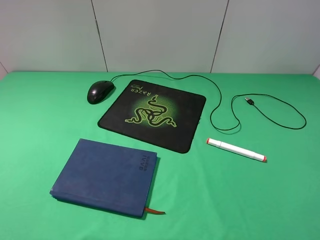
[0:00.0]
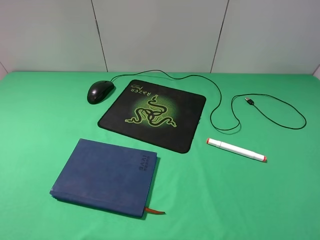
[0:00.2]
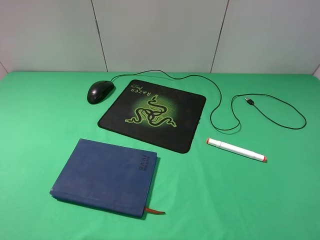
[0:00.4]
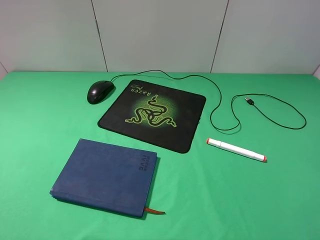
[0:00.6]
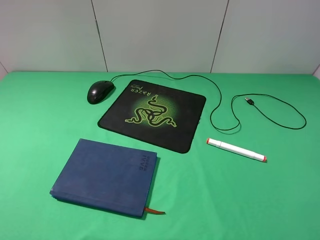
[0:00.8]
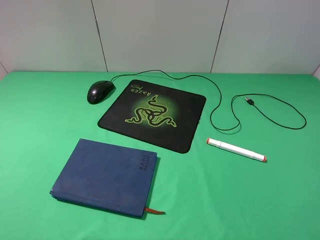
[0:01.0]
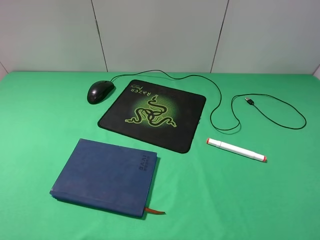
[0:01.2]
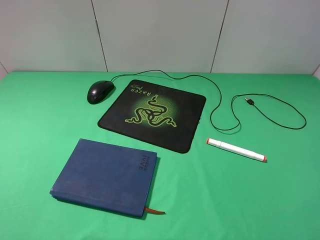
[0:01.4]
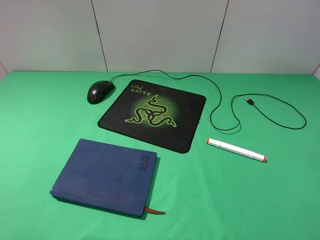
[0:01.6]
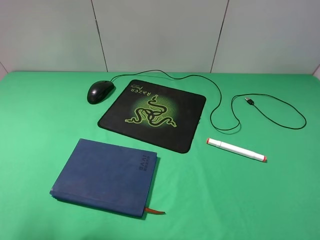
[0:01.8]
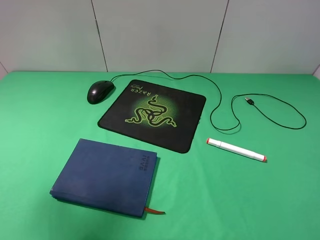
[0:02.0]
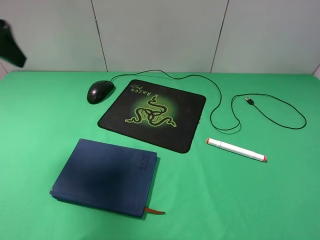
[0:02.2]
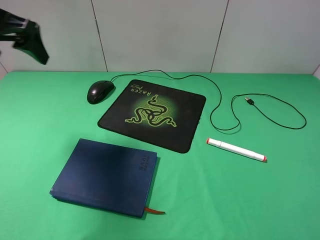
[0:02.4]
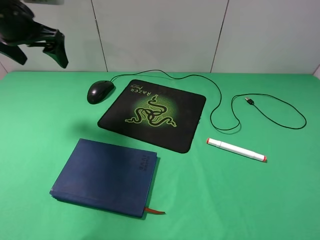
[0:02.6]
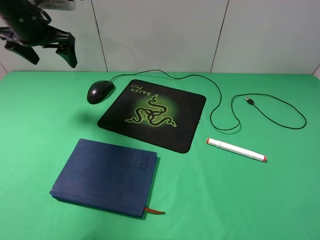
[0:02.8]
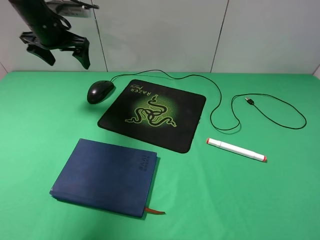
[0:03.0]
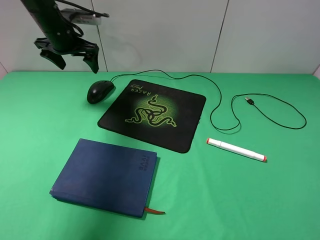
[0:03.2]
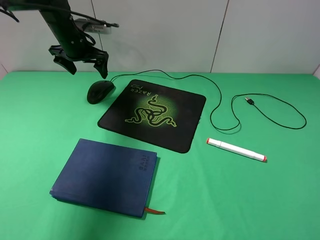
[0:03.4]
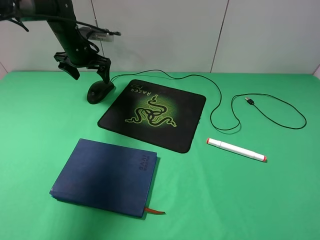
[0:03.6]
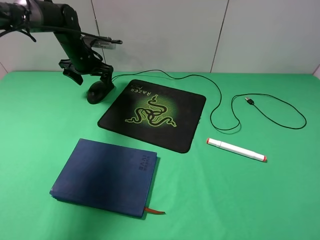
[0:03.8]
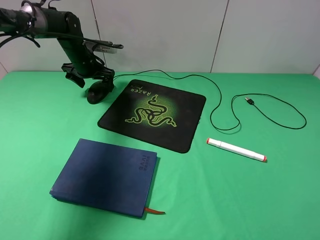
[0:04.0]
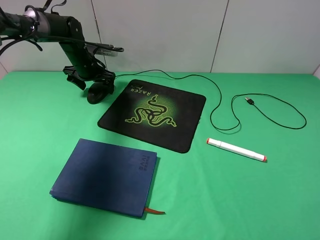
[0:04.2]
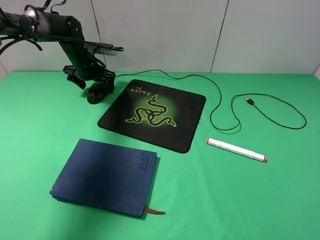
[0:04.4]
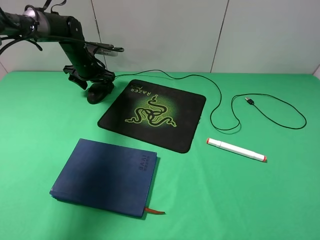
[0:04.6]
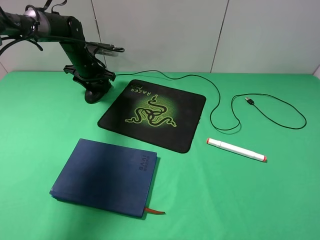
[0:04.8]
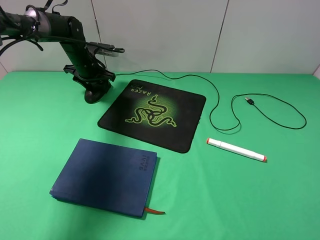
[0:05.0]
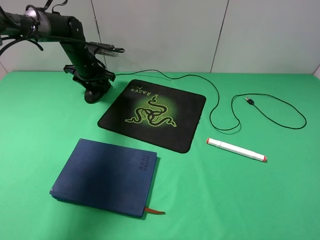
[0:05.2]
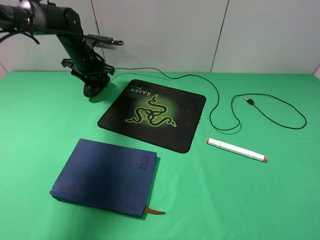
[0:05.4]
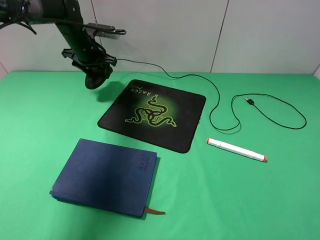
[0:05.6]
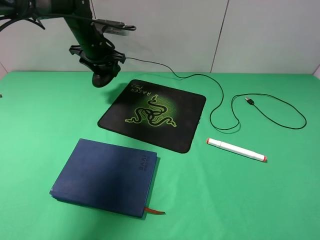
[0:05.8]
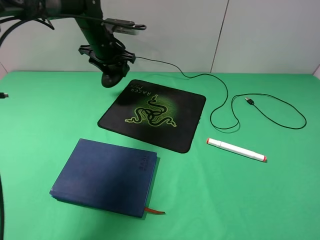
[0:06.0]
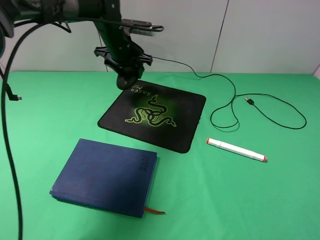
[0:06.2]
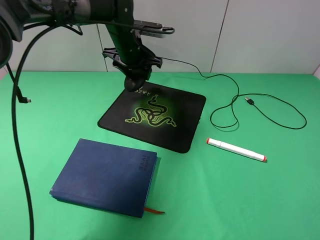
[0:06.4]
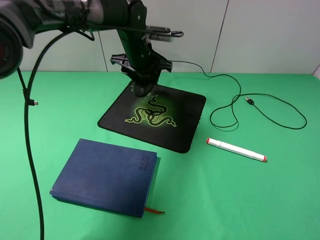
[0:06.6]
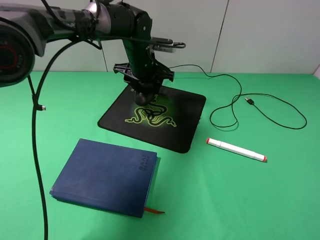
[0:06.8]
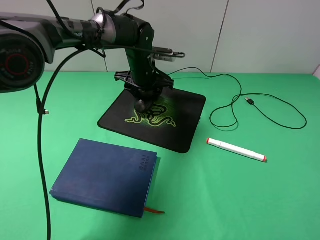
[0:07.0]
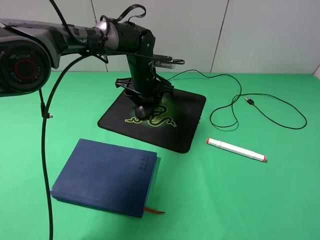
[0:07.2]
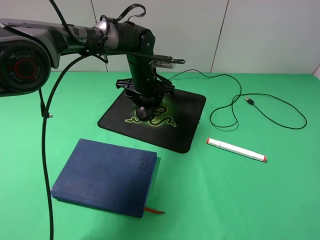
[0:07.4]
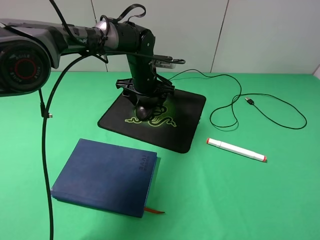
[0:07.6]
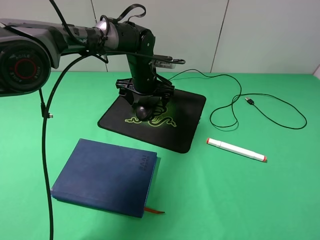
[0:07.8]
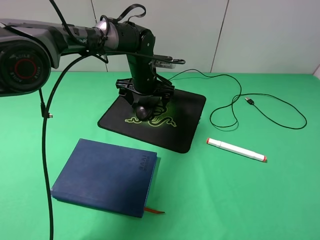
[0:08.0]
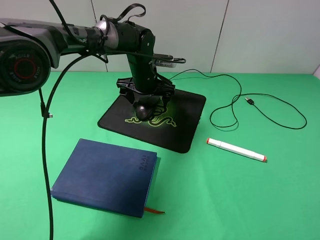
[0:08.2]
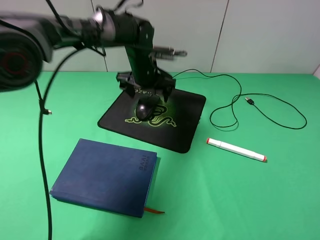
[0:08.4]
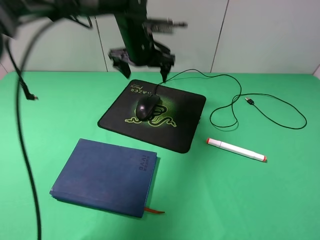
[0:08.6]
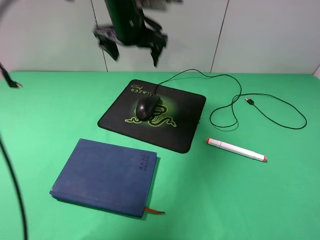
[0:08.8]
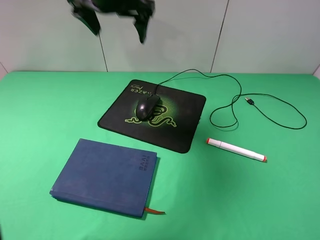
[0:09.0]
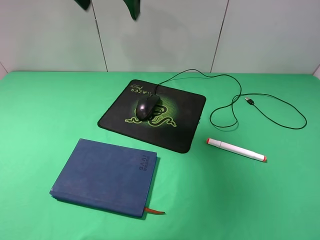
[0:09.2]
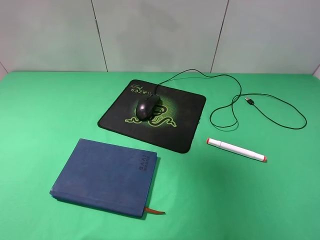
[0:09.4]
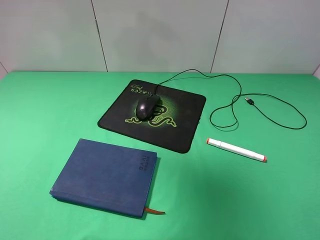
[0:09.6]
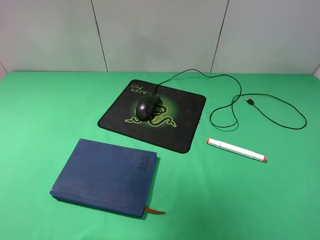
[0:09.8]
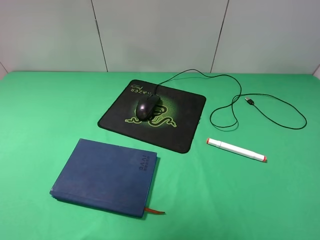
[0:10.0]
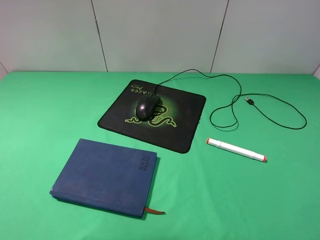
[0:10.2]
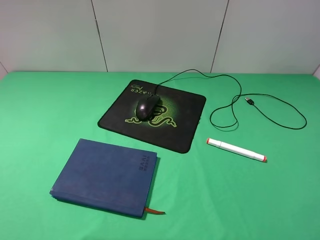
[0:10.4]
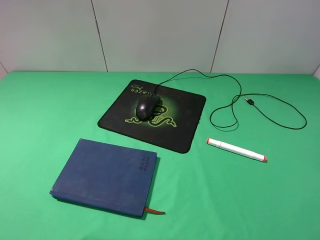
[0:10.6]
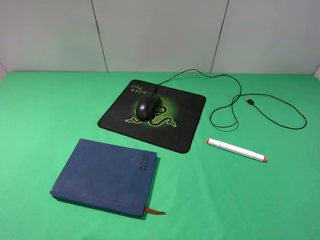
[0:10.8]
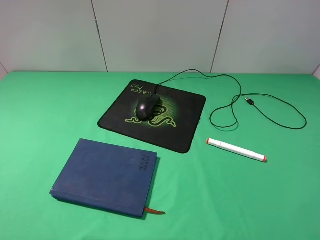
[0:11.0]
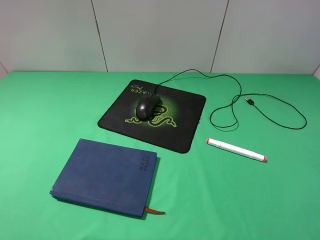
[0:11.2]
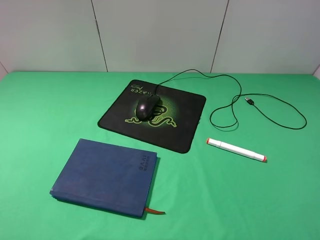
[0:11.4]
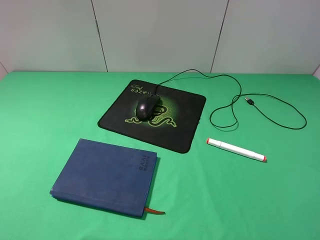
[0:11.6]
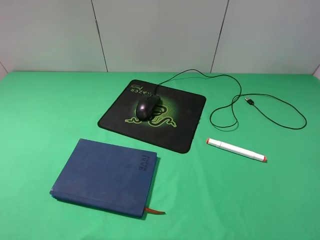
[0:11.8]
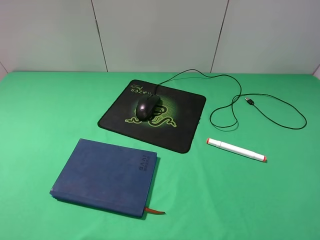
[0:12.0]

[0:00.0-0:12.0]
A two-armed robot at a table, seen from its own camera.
Step, 0:00.0 to 0:05.0: Grasp the mouse with the left gripper.
Step, 0:05.2 to 0:08.0: Place the mouse on the mouse pad with the left gripper.
0:01.6 to 0:03.0: The left gripper shifts approximately 40 cm forward.
0:03.0 to 0:04.4: The left gripper moves downward and forward, roughly 15 cm.
0:04.4 to 0:06.0: The left gripper is displaced to the right and upward by approximately 10 cm, and closes.
0:06.0 to 0:07.6: The left gripper heads to the right and downward, covering roughly 10 cm, and opens its fingers.
0:07.6 to 0:09.0: The left gripper travels upward by approximately 25 cm, and opens up.
0:09.0 to 0:10.4: The left gripper heads backward and to the left, covering some 35 cm.

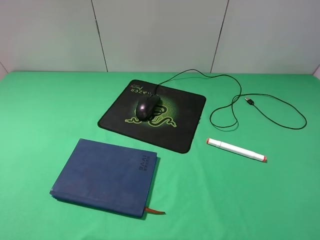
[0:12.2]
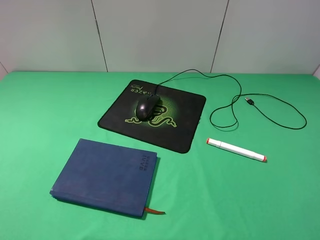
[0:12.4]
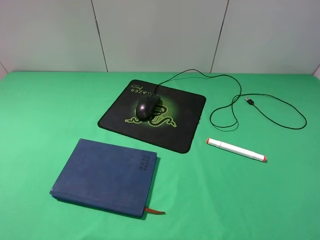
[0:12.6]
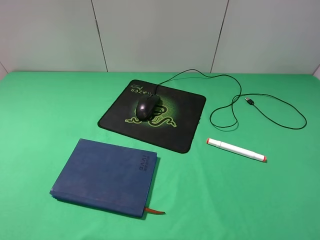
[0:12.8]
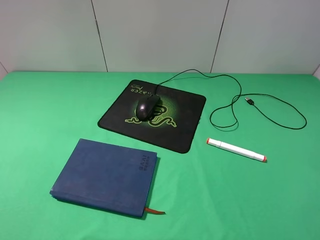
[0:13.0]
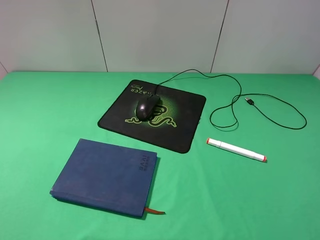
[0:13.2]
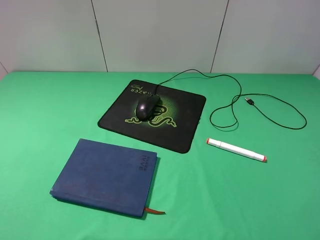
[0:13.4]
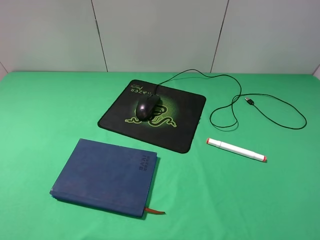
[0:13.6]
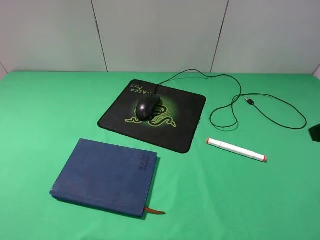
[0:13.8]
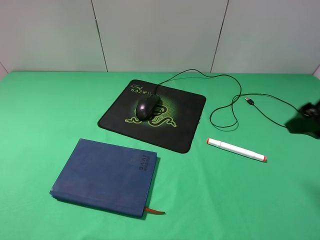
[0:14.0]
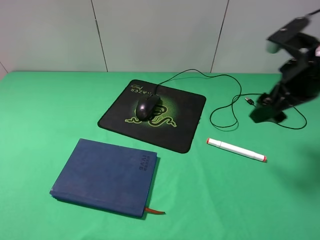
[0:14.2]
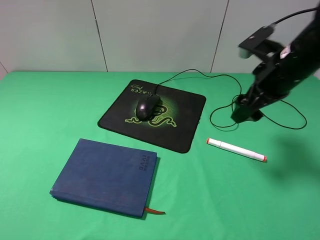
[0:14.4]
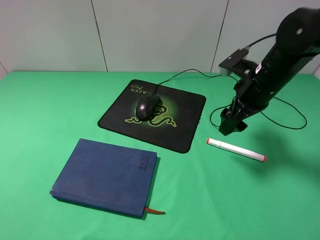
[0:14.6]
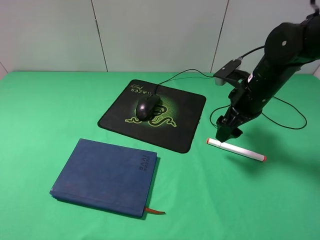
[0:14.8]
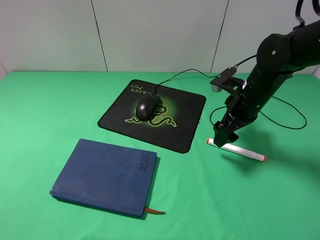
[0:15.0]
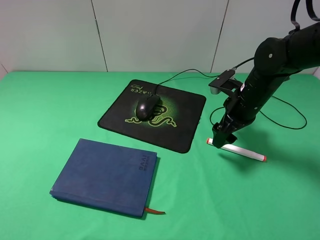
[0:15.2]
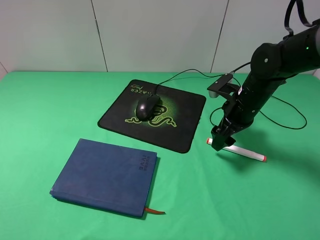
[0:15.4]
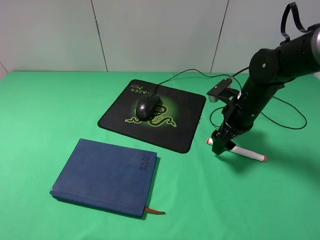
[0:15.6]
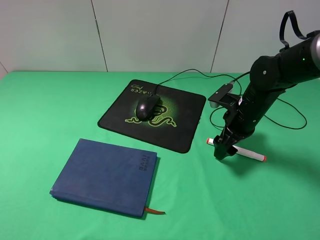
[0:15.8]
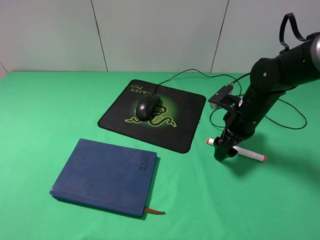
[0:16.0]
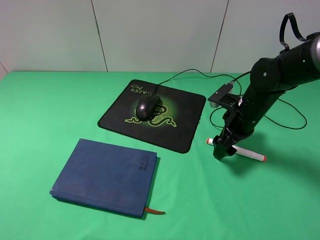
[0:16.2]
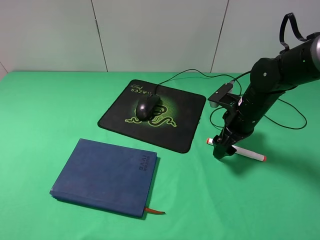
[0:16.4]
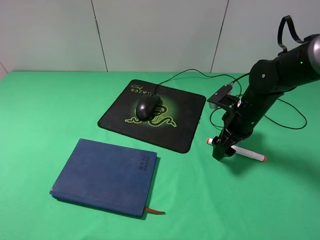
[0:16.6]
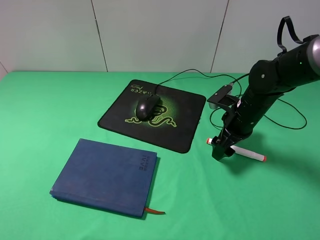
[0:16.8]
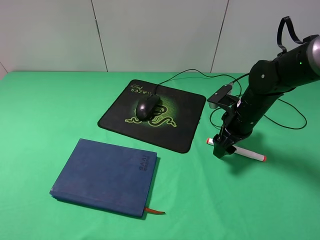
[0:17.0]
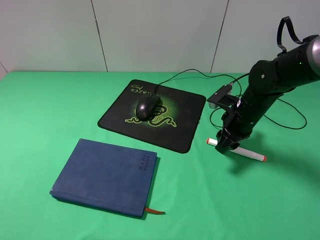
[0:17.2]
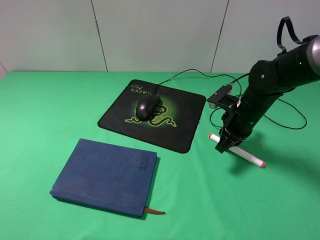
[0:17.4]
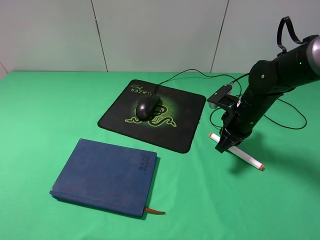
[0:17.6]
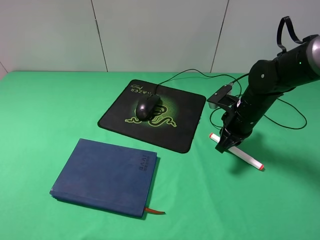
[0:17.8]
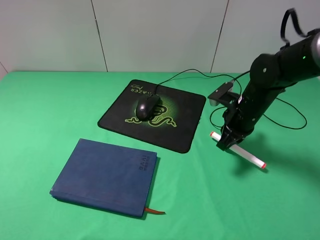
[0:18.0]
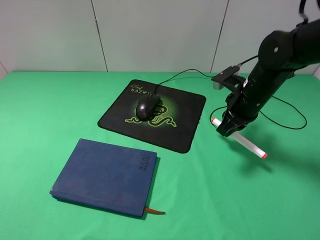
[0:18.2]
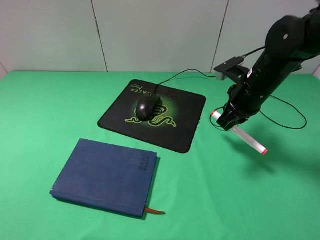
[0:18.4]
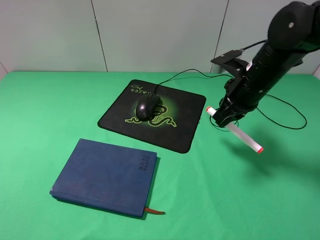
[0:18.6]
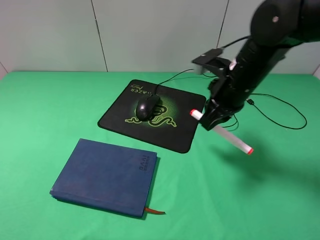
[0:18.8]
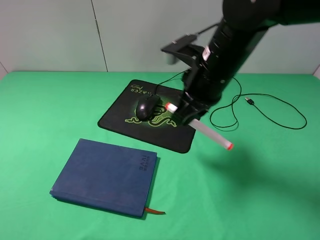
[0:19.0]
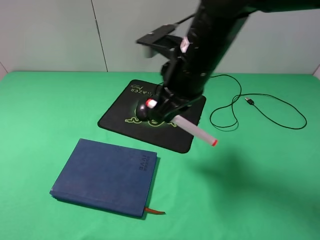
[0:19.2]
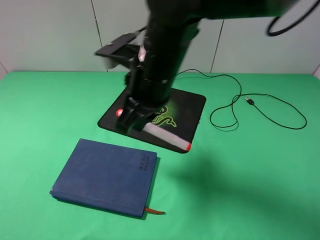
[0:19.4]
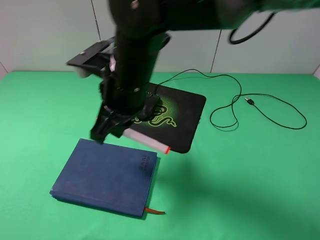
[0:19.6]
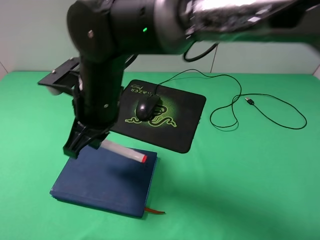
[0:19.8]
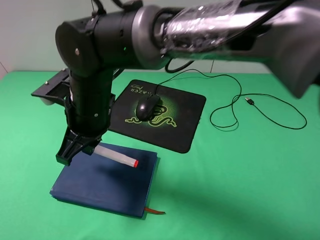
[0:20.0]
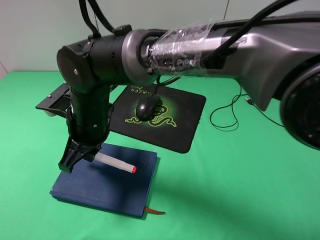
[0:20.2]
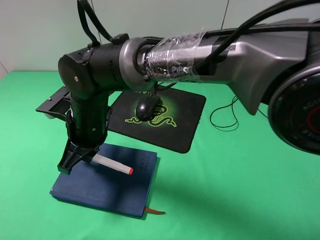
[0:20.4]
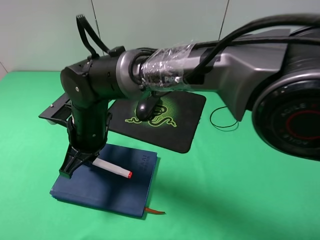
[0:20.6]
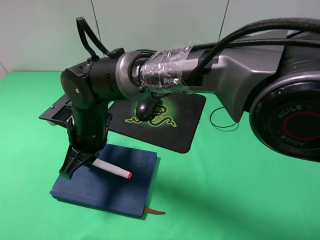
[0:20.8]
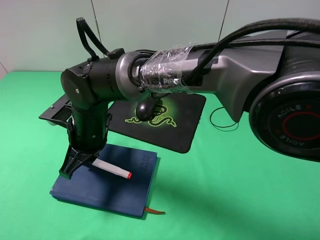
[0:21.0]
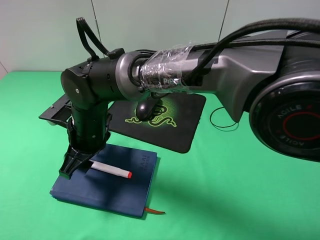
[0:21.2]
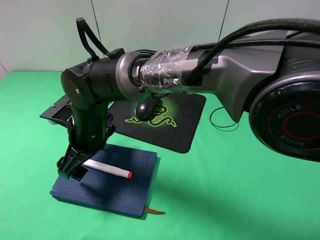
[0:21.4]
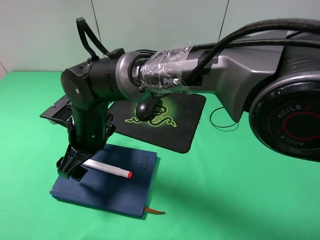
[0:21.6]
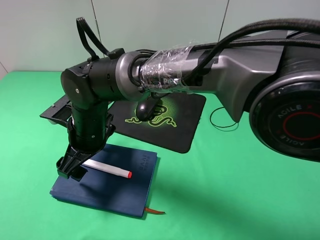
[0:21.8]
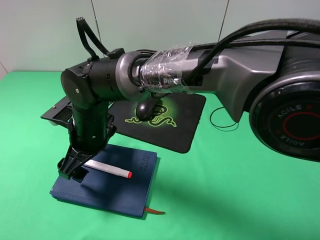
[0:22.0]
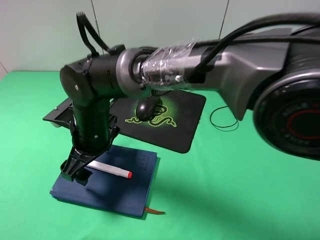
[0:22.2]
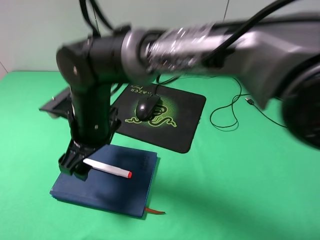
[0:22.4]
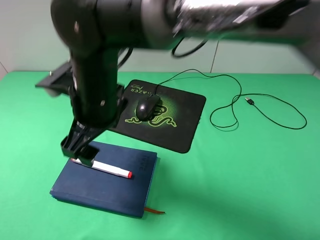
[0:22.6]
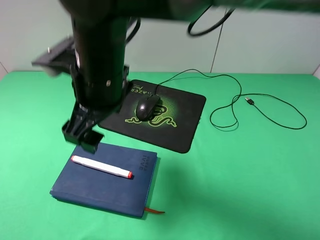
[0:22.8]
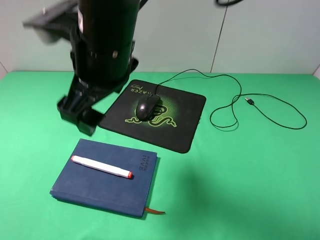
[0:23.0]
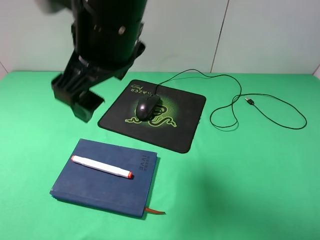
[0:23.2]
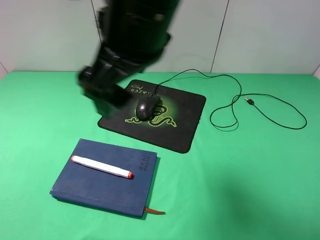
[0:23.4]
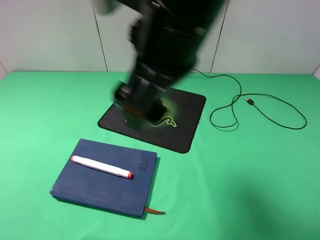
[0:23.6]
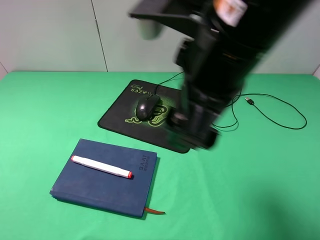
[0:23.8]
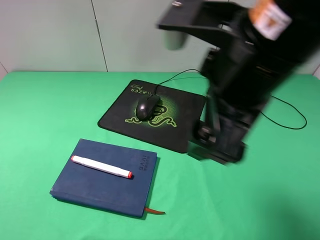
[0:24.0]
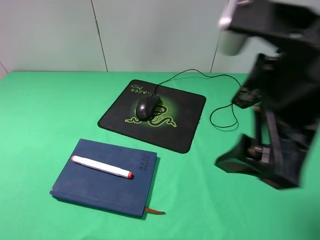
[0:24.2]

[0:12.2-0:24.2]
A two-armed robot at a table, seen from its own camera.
Step, 0:12.2 to 0:17.4: Grasp the marker with the right gripper.
Step, 0:17.6 to 0:21.4: Place the marker on the notebook with the right gripper.
0:13.8 to 0:15.2: The right gripper heads forward, downward and to the left, covering about 25 cm.
0:15.2 to 0:16.6: The grippers stay close to where they were, moving slightly.
0:16.6 to 0:18.2: The right gripper closes.
0:18.2 to 0:19.8: The right gripper moves to the left, some 30 cm.
0:19.8 to 0:21.2: The right gripper goes some 10 cm downward, and opens.
0:21.2 to 0:22.6: The right gripper moves upward, approximately 10 cm, and opens up.
0:22.6 to 0:24.2: The right gripper travels to the right, backward and upward by some 30 cm.
